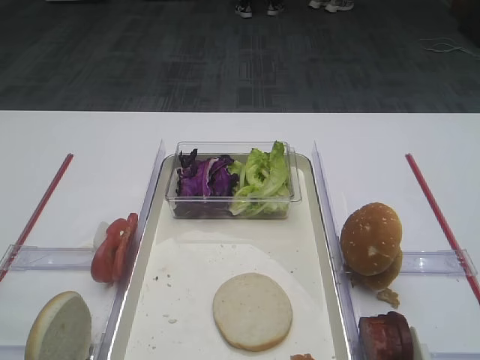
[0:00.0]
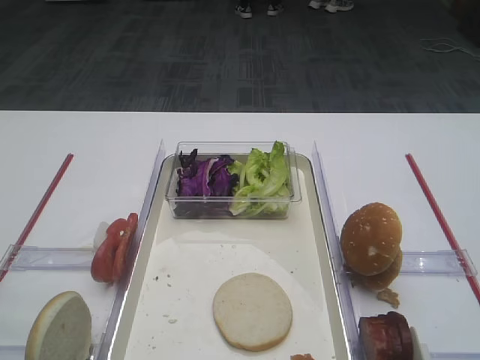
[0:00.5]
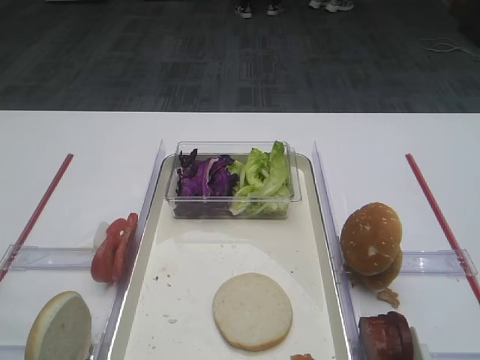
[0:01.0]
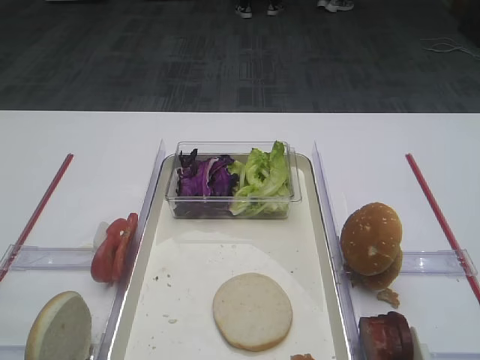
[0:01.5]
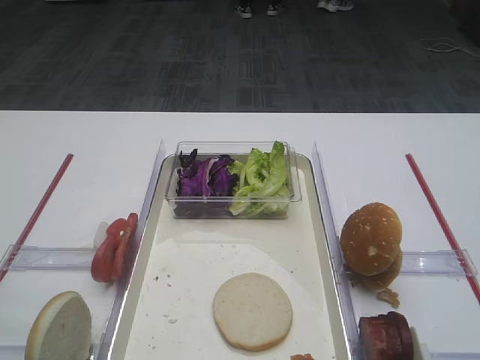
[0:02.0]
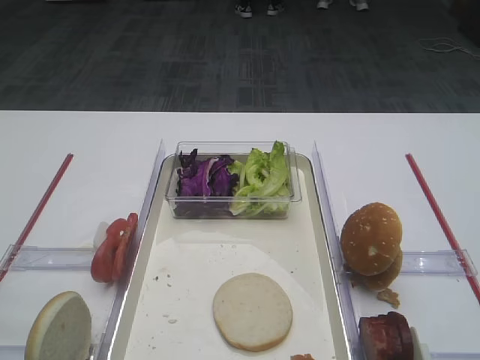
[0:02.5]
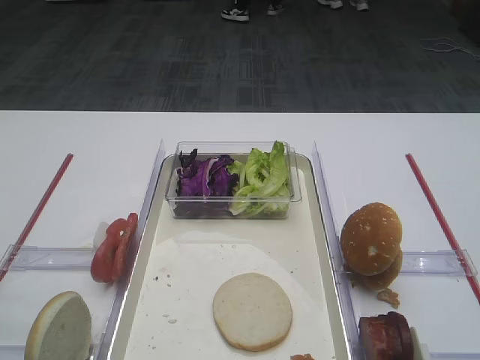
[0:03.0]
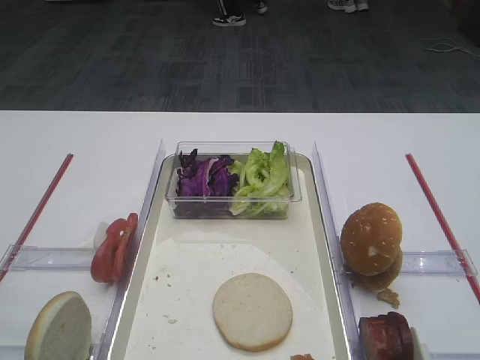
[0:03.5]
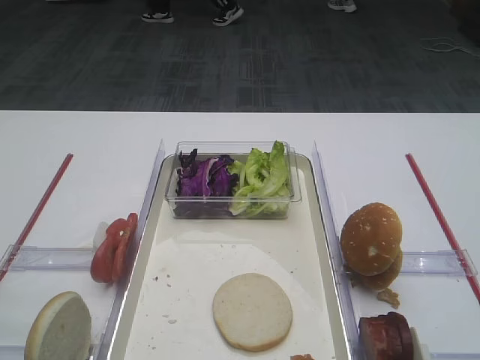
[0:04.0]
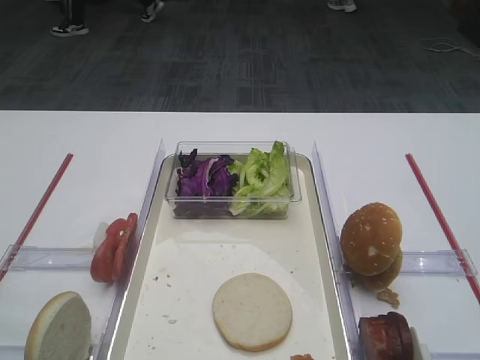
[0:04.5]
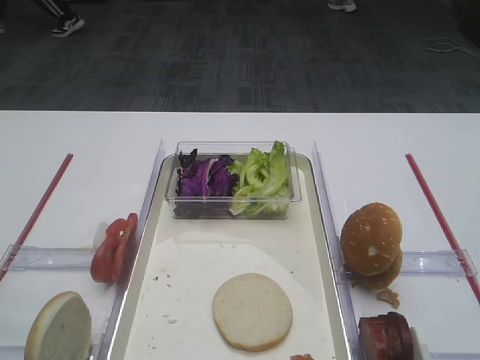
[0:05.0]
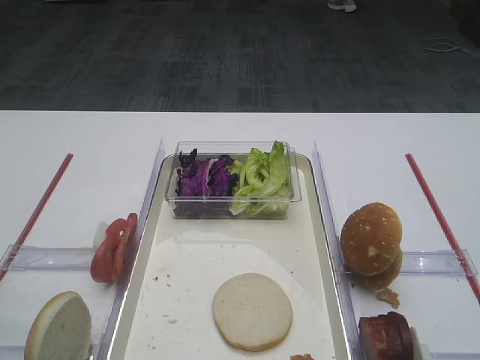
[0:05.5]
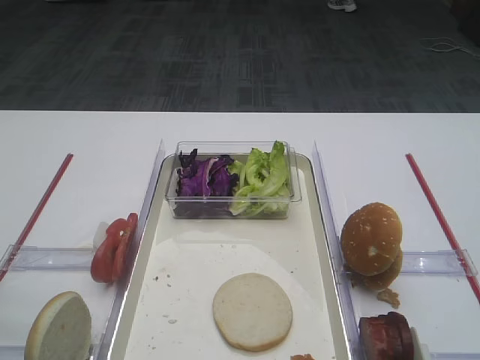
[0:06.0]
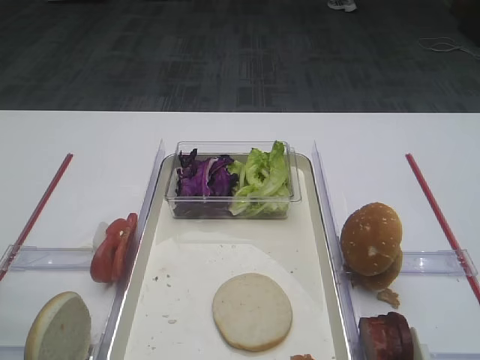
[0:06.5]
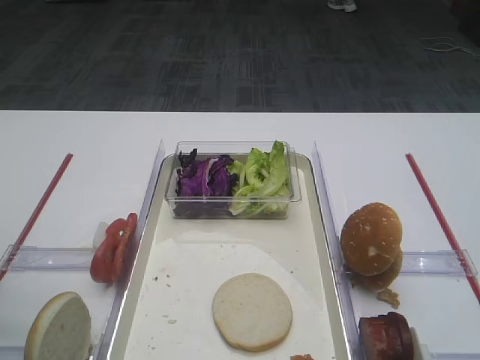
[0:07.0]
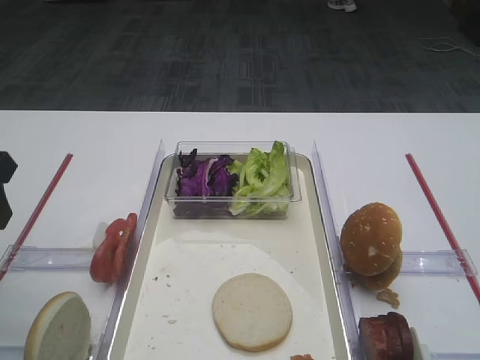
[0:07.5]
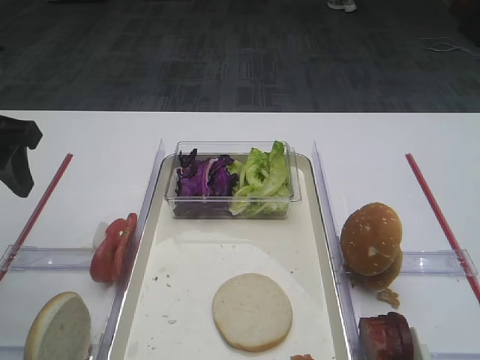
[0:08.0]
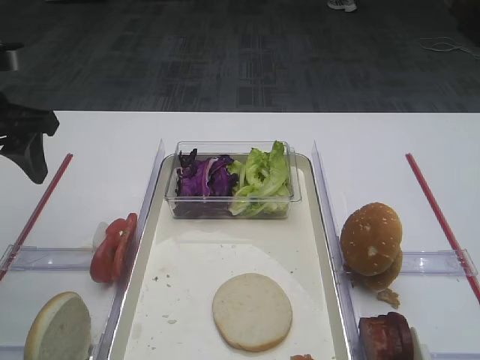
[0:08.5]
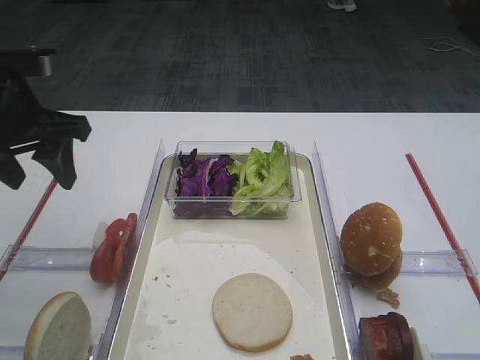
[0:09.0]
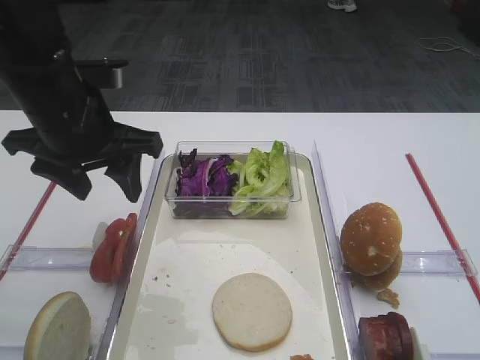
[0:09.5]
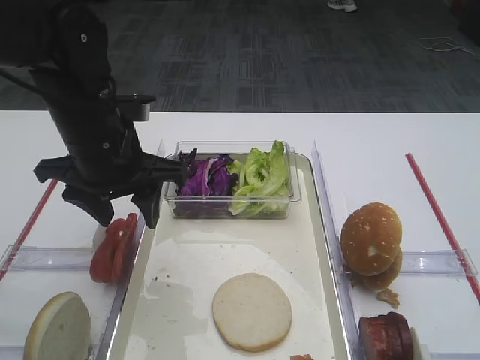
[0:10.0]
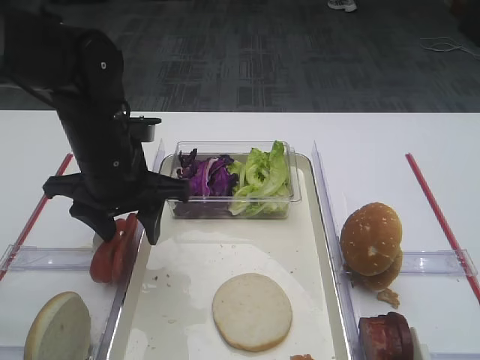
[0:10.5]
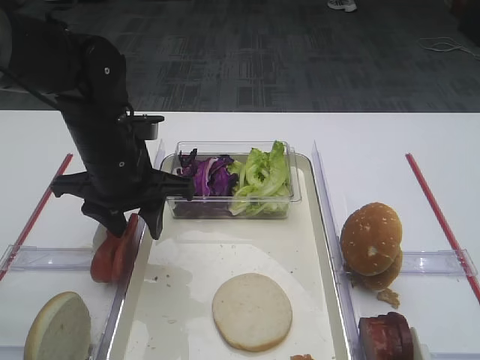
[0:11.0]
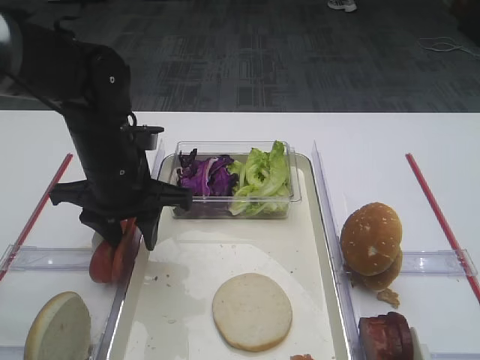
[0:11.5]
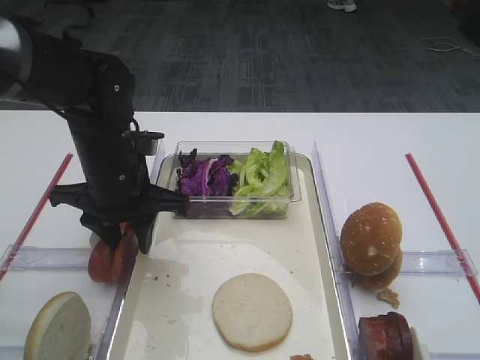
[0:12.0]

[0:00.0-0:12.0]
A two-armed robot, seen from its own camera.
0:02.0 to 0:04.0: The two grippers keep their place.
0:06.0 to 0:08.0: The left gripper shifts roughly 15 cm forward.
0:08.0 to 0:10.0: The left gripper heads to the right, covering approximately 15 cm.
0:10.0 to 0:12.0: The left gripper goes approximately 5 cm downward.

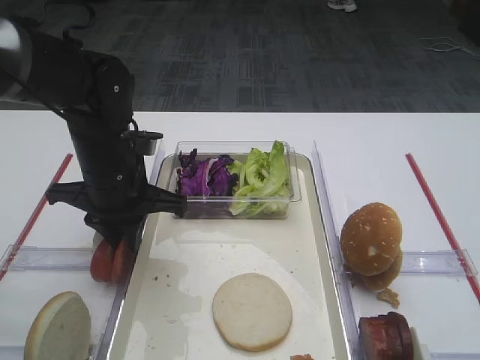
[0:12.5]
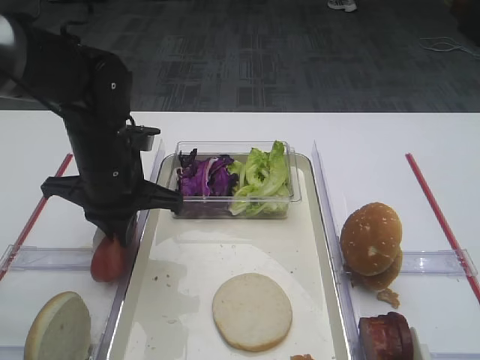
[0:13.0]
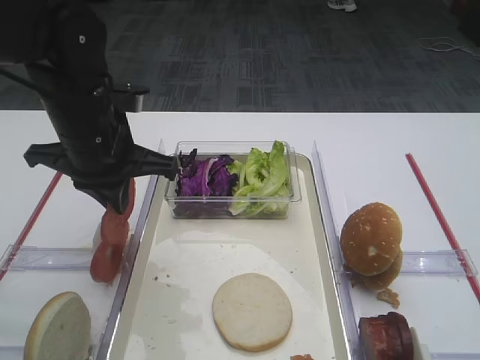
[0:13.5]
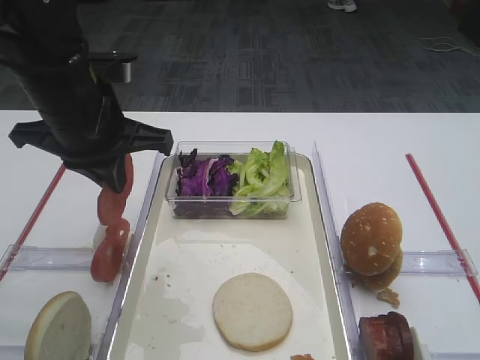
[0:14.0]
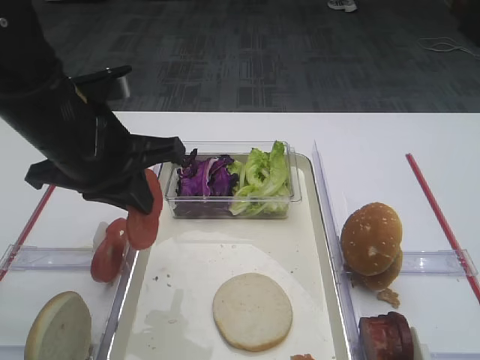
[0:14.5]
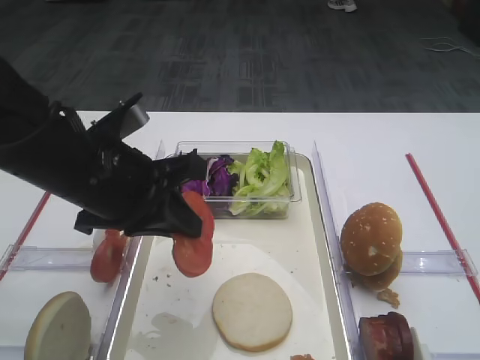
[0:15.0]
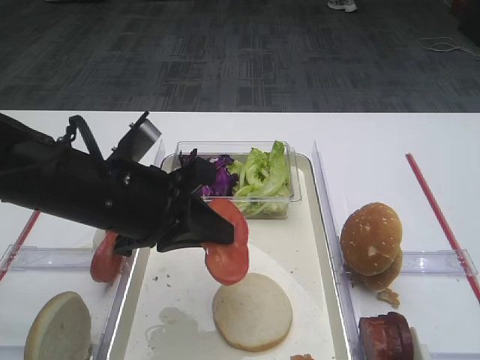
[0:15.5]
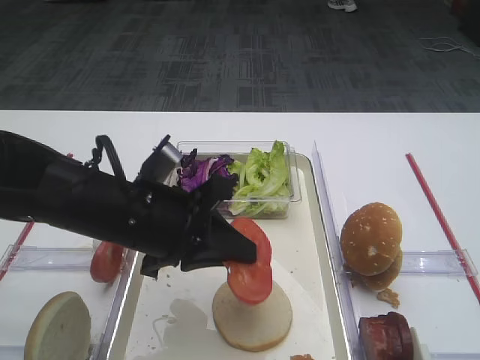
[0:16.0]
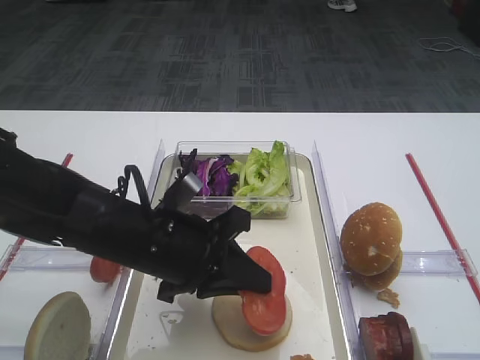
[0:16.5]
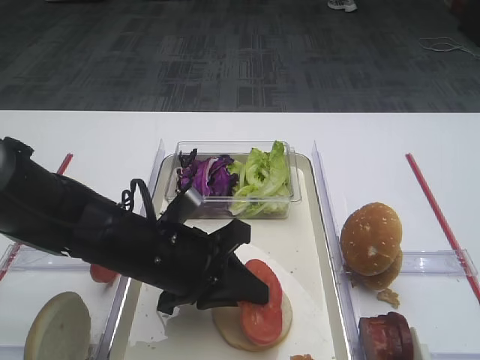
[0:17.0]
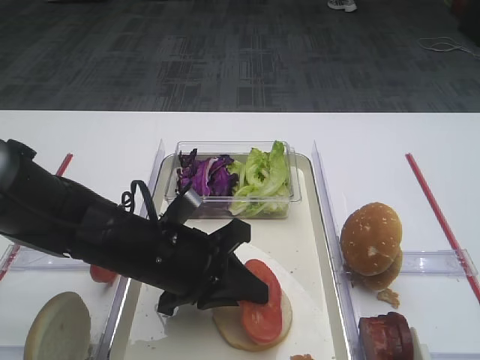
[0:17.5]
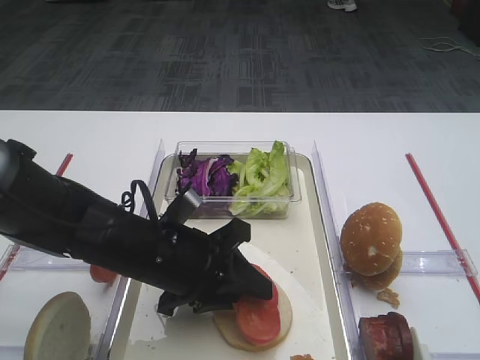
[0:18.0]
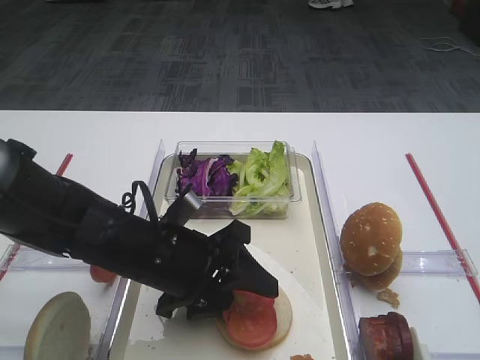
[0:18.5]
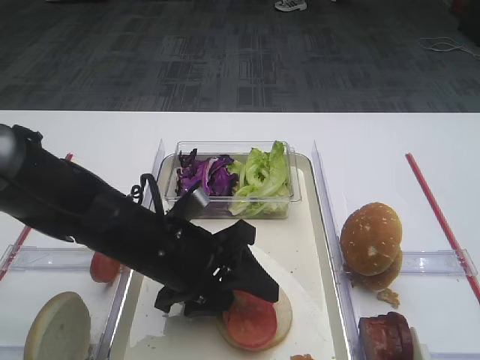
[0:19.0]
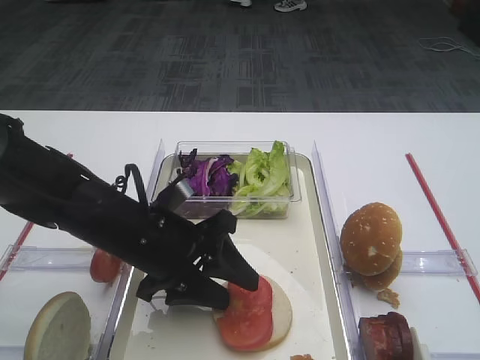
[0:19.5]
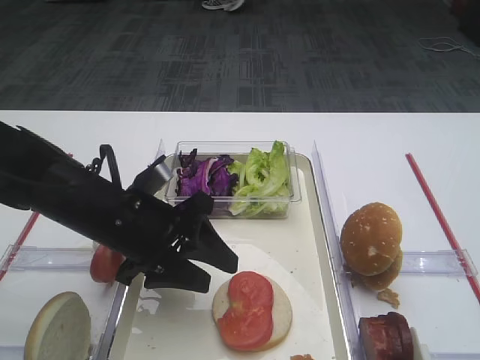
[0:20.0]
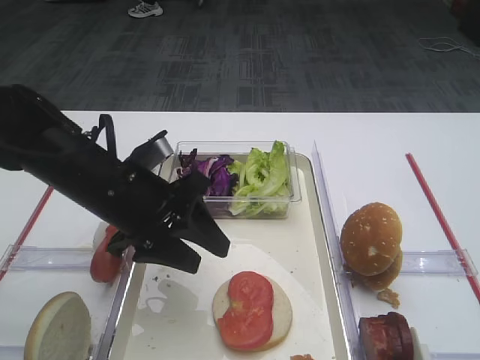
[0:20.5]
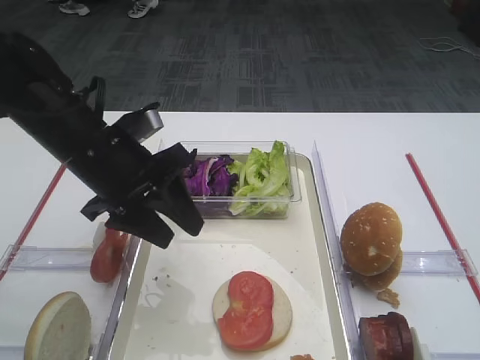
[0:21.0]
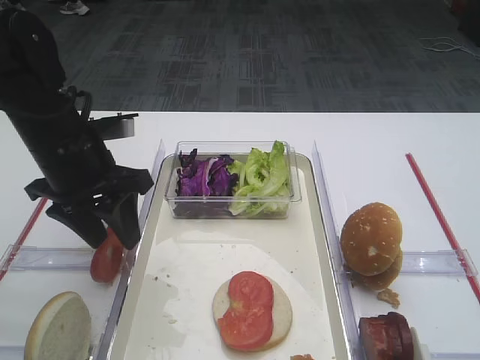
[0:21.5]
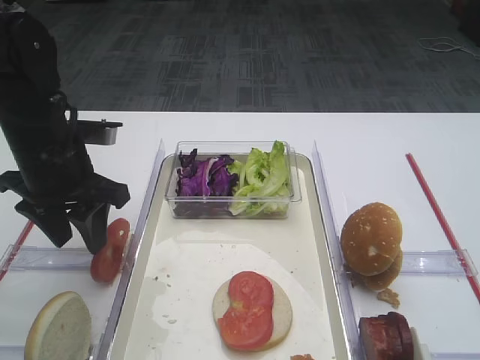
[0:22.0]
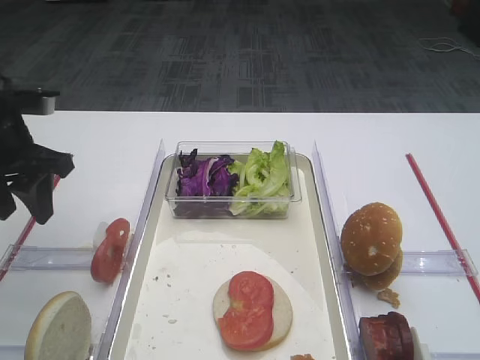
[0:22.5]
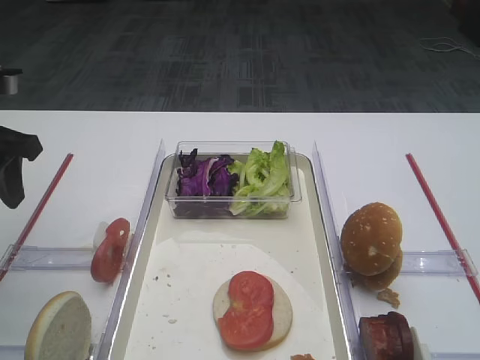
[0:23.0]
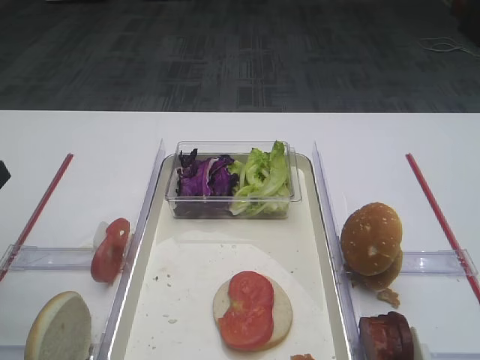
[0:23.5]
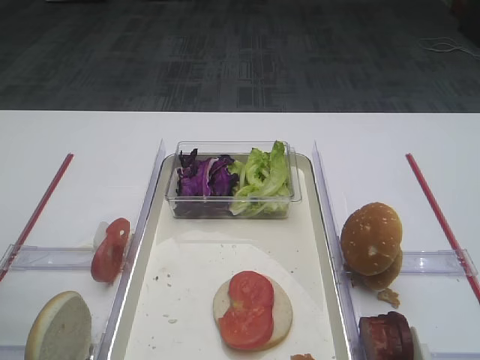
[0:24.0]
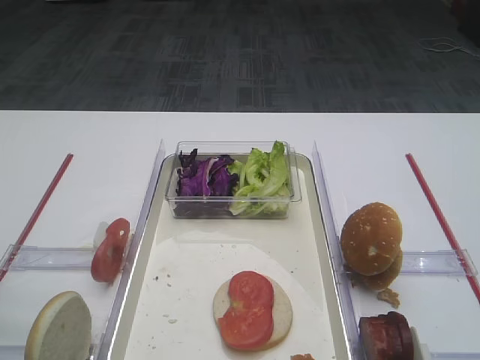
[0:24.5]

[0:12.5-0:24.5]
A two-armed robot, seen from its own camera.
Step, 0:14.0 to 0:20.0: Place the tomato slice on the bread slice with the left gripper.
0:12.5 to 0:14.5: The left gripper is displaced upward and backward by some 10 cm.
0:14.5 to 0:16.5: The left gripper heads downward and to the right, covering some 15 cm.
0:16.5 to 0:18.5: The left gripper opens.
0:18.5 to 0:20.5: The left gripper moves upward, about 5 cm.
0:20.5 to 0:22.5: The left gripper goes approximately 15 cm to the left and upward.
0:22.5 to 0:24.5: The left gripper shifts approximately 20 cm backward.

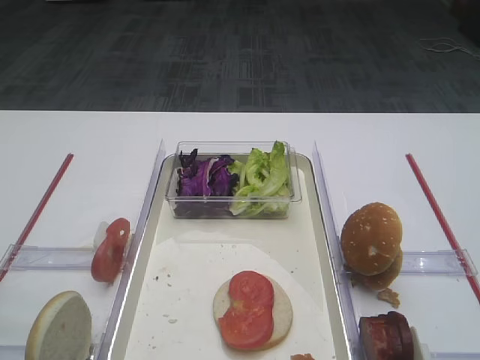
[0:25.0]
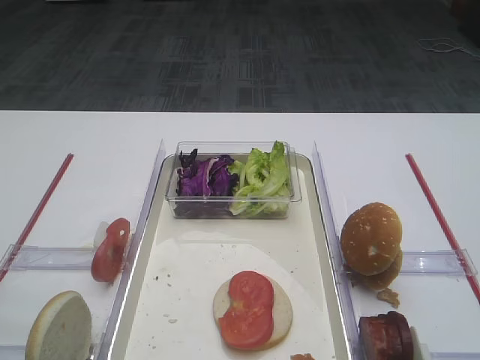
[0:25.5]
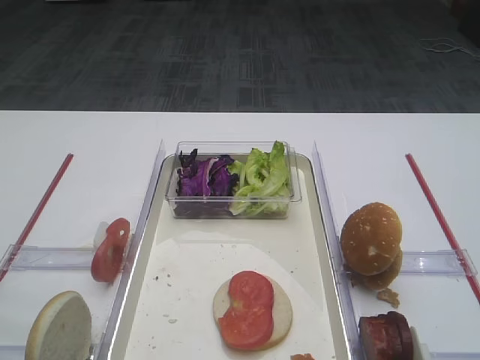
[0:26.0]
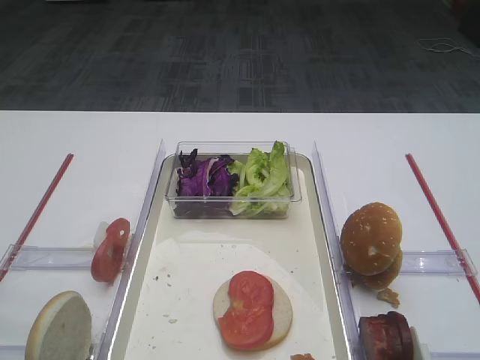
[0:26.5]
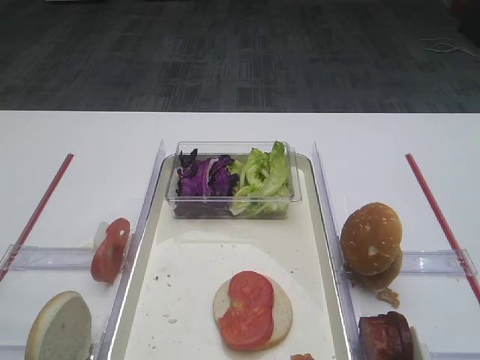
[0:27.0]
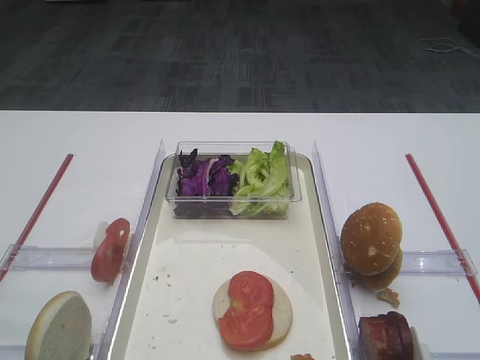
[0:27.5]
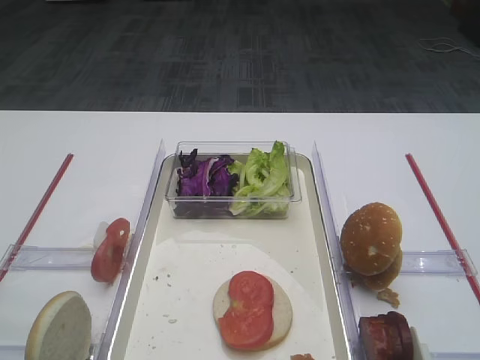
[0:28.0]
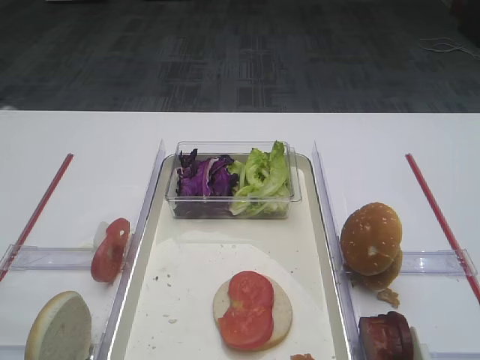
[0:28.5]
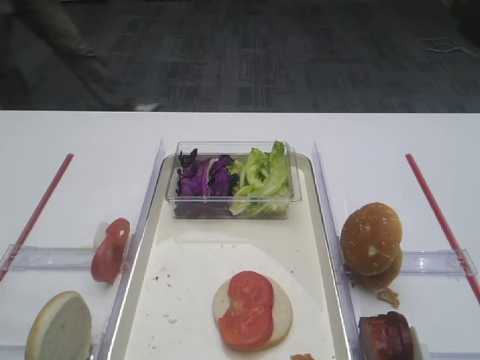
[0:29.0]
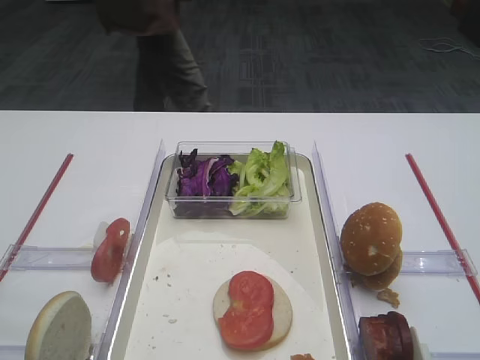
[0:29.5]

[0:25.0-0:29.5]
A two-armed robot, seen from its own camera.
0:27.0 to 0:29.5: Both grippers stay about where they are.
